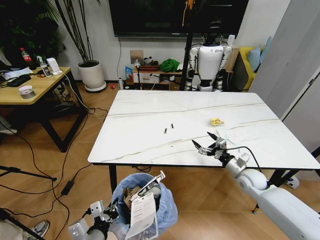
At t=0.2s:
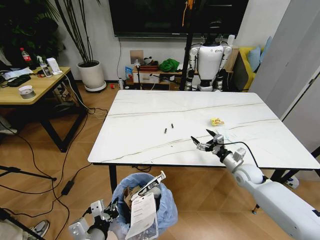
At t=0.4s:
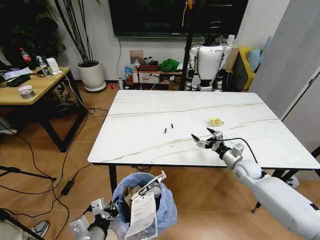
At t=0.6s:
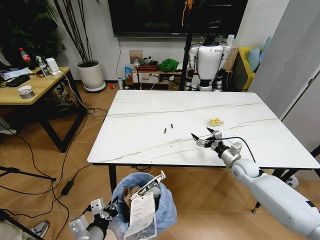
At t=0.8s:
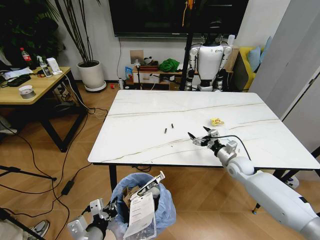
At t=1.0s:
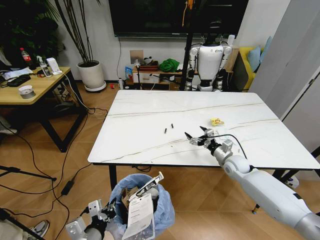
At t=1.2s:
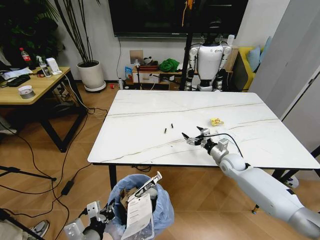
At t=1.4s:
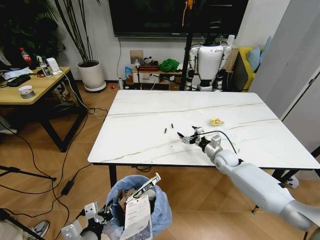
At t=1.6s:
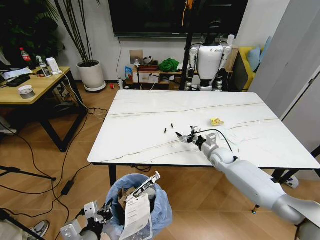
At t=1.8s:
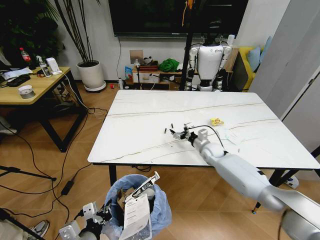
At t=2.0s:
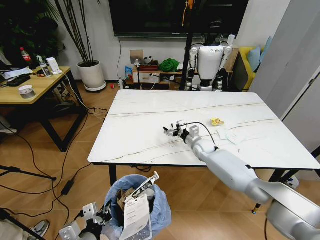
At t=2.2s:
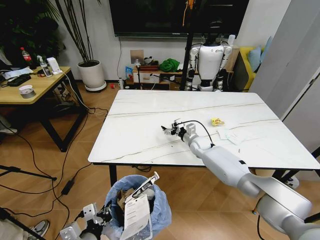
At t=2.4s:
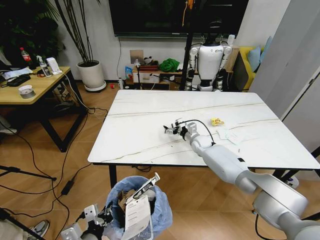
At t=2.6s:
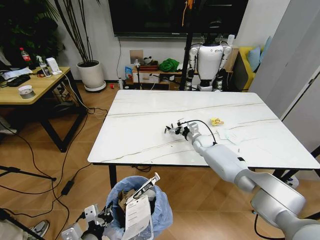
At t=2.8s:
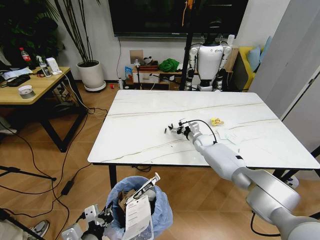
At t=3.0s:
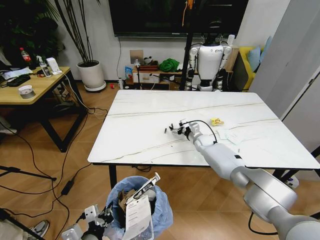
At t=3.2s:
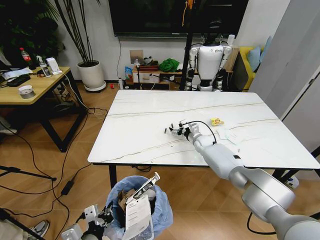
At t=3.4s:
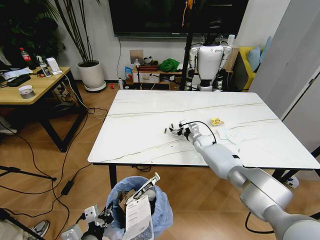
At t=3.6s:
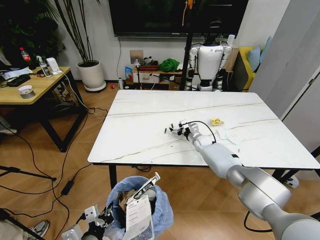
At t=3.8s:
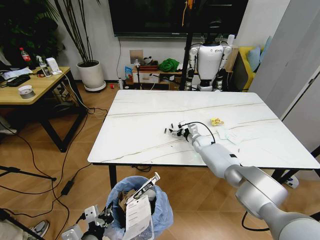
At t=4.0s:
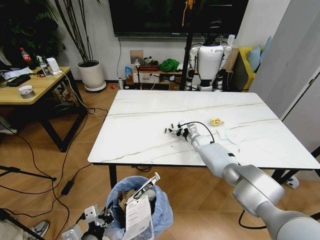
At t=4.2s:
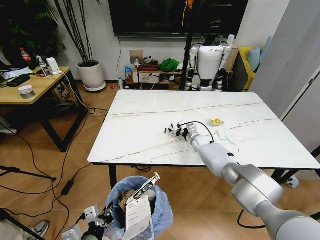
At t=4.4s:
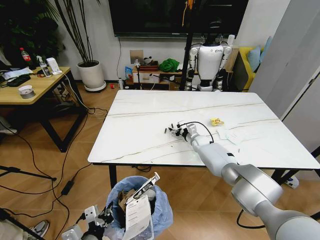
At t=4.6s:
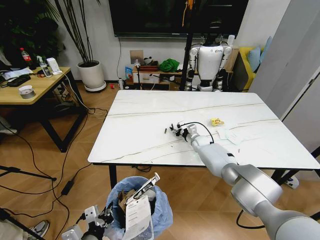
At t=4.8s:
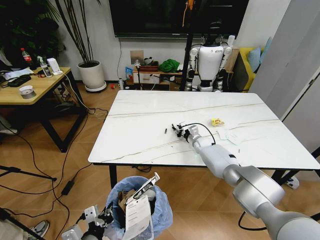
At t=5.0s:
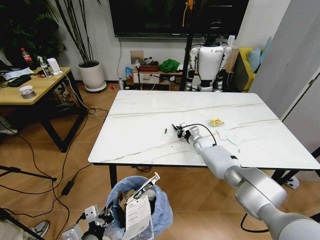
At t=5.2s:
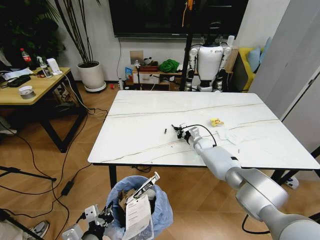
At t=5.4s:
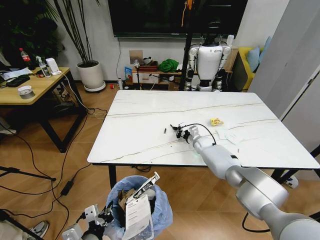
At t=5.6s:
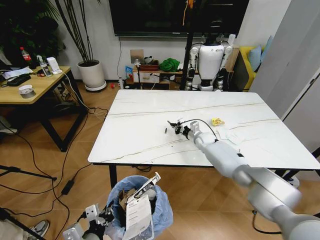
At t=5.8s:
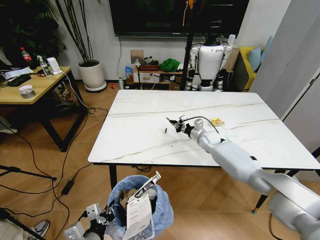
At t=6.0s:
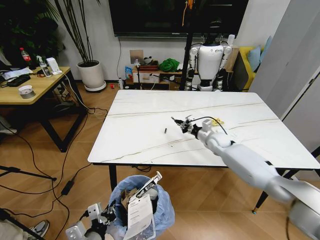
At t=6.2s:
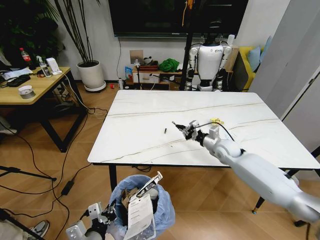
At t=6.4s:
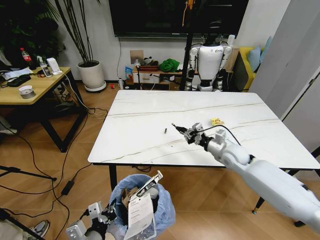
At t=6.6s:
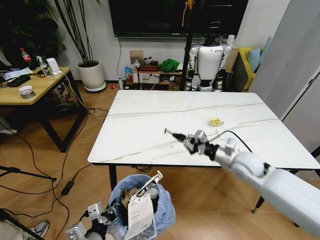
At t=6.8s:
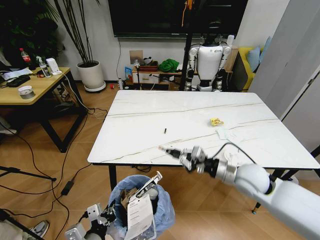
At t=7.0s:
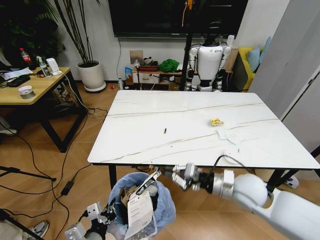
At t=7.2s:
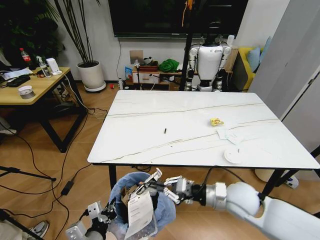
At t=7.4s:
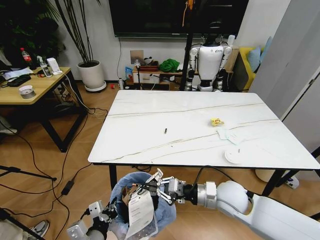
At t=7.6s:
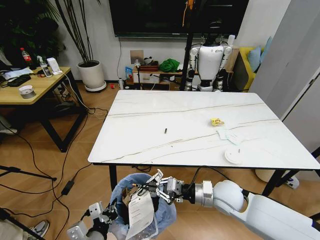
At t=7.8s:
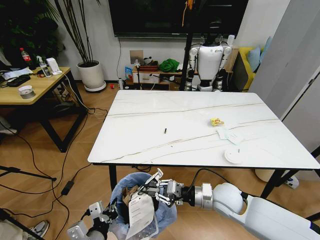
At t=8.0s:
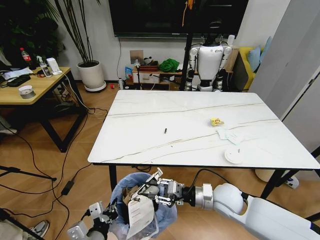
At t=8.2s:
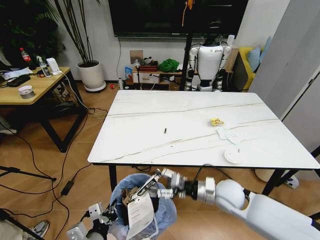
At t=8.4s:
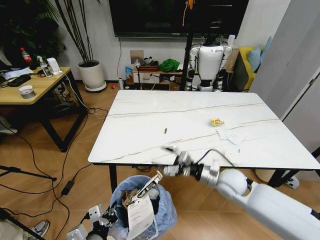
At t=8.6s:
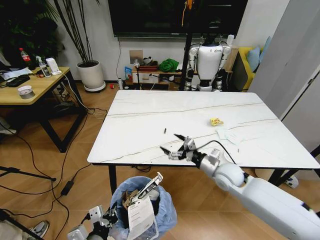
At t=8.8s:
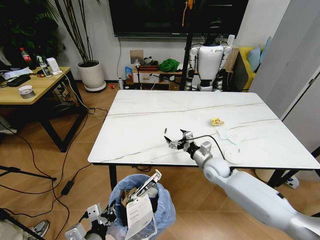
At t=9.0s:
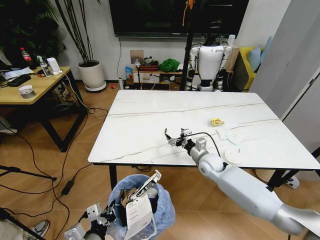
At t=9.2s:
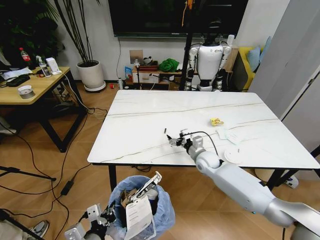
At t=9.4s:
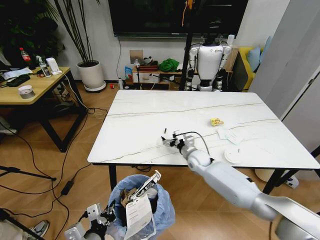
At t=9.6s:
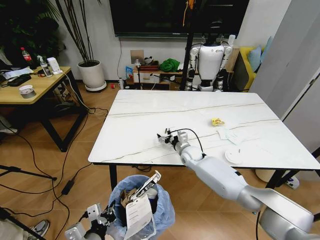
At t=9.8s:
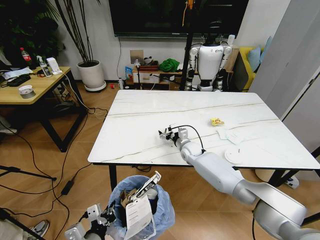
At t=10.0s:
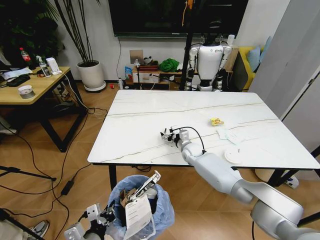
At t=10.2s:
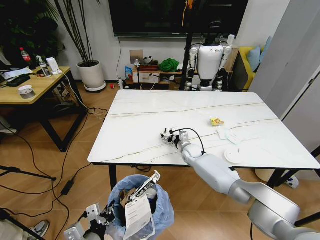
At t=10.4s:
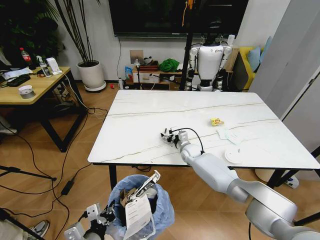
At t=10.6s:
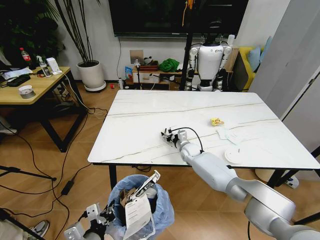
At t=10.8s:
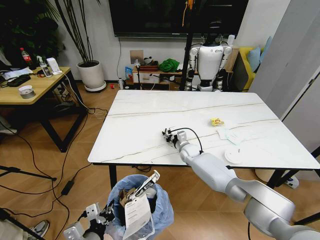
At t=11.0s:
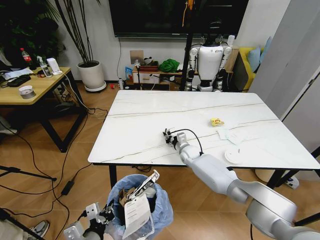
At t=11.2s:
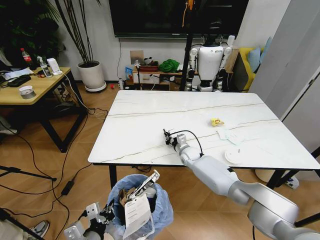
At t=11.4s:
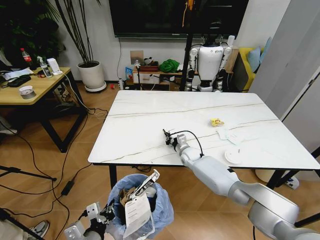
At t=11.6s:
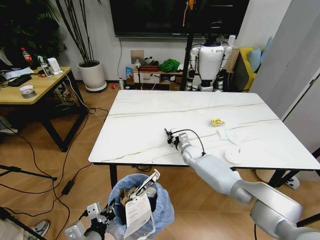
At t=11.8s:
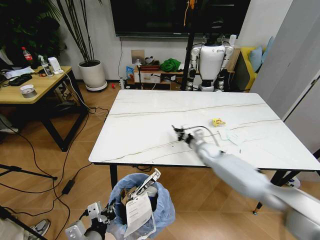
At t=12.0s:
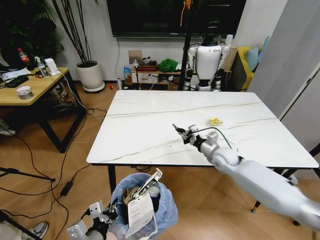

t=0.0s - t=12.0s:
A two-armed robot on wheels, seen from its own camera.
Task of the whole recording: Pick up the trash bin and place the trash from the table into it.
t=0.0s - t=1.6s: The right gripper goes approximately 15 cm forward and to the left.
t=1.6s - t=3.0s: The right gripper is displaced forward by some 10 cm.
t=3.0s - t=4.4s: There are only small adjustments of the grippers.
t=4.4s - t=6.0s: The right gripper is displaced upward, to the right and backward by roughly 10 cm, and closes up.
t=6.0s - t=7.6s: The right gripper is displaced backward by some 25 cm.
t=7.6s - t=9.0s: The right gripper shifts some 15 cm forward, and opens its fingers.
t=9.0s - t=10.4s: The right gripper heads forward and to the left, covering about 10 cm.
t=10.4s - t=12.0s: The right gripper travels to the right, upward and backward by some 15 cm, and closes up.

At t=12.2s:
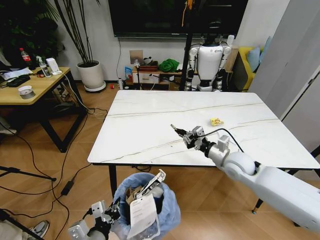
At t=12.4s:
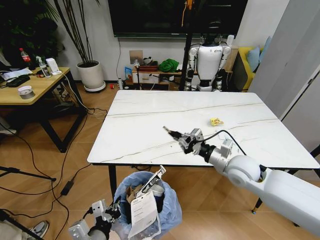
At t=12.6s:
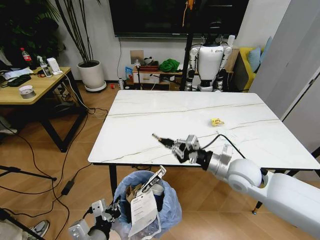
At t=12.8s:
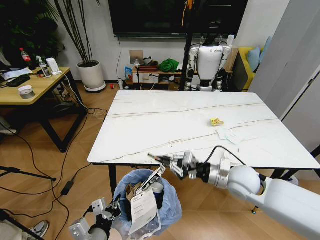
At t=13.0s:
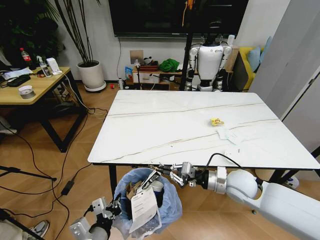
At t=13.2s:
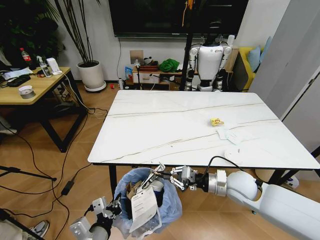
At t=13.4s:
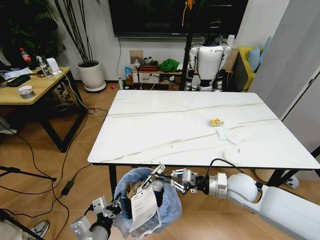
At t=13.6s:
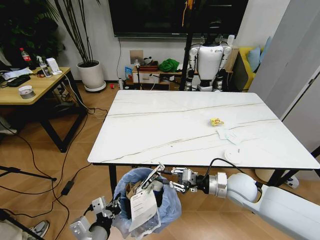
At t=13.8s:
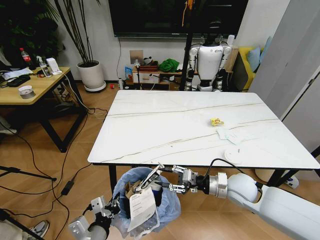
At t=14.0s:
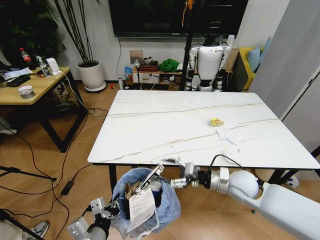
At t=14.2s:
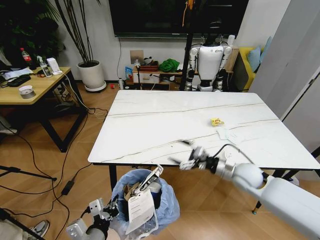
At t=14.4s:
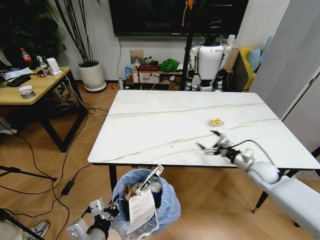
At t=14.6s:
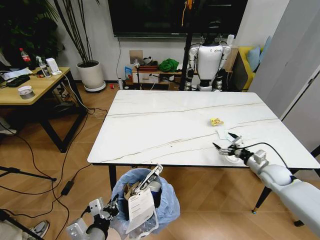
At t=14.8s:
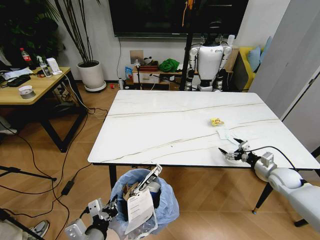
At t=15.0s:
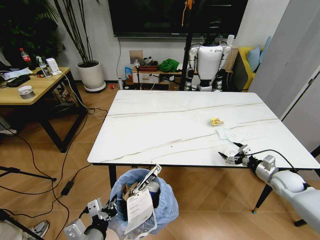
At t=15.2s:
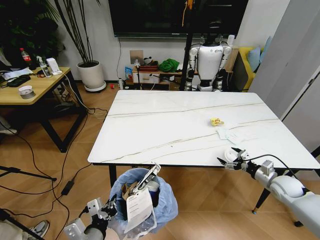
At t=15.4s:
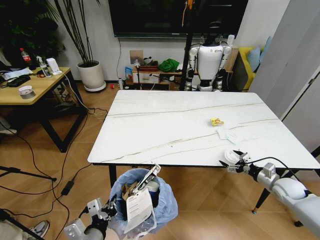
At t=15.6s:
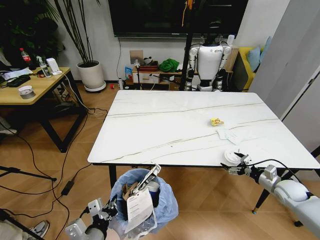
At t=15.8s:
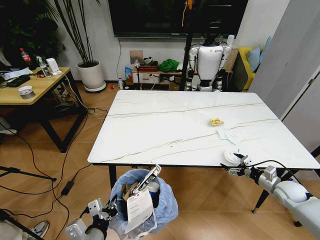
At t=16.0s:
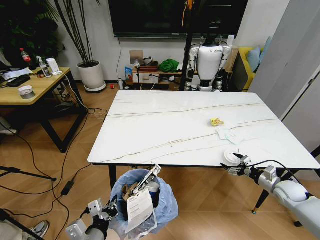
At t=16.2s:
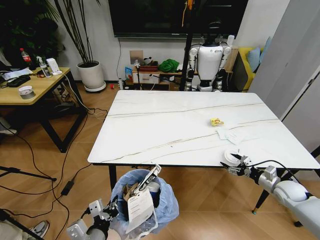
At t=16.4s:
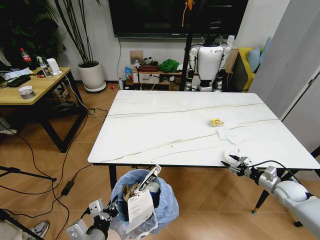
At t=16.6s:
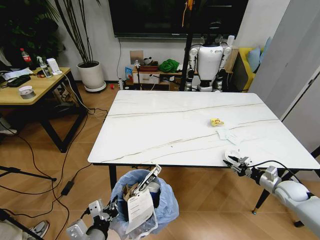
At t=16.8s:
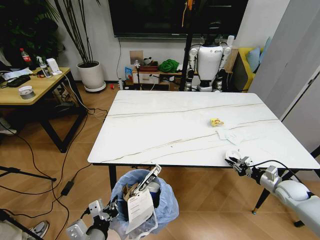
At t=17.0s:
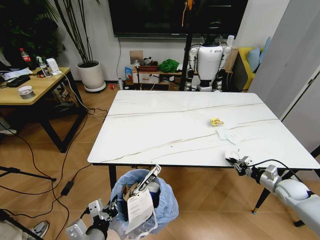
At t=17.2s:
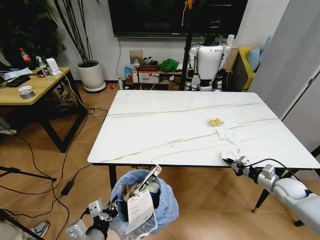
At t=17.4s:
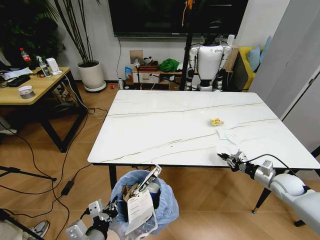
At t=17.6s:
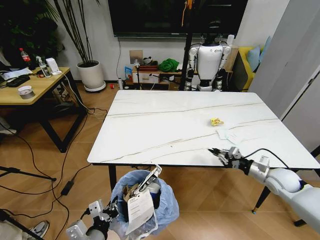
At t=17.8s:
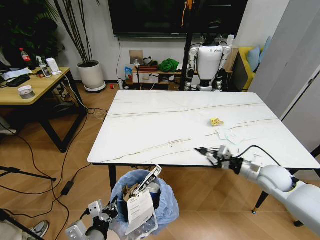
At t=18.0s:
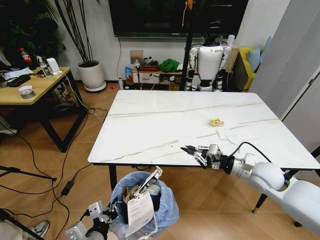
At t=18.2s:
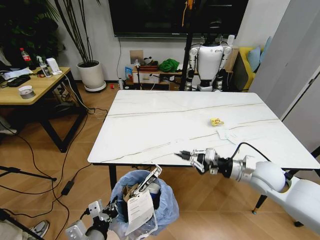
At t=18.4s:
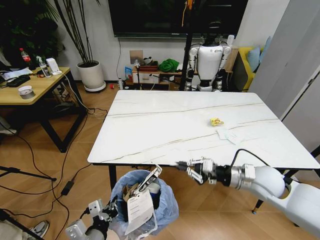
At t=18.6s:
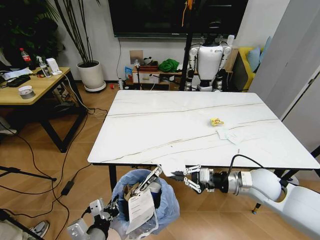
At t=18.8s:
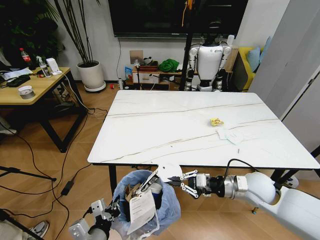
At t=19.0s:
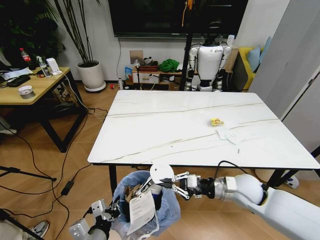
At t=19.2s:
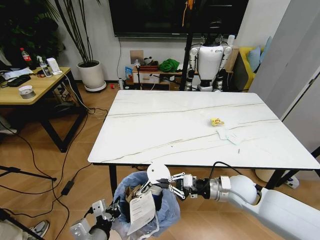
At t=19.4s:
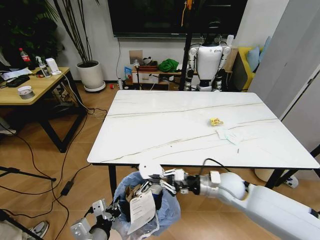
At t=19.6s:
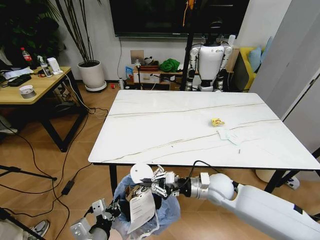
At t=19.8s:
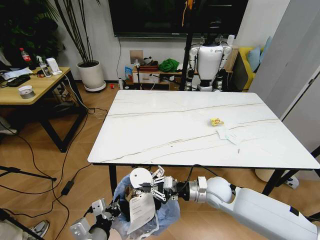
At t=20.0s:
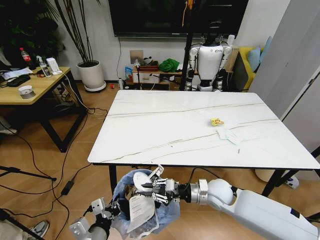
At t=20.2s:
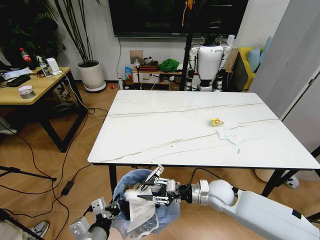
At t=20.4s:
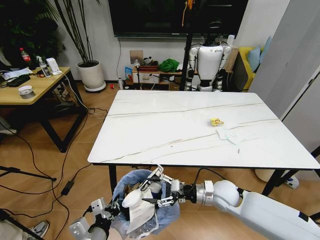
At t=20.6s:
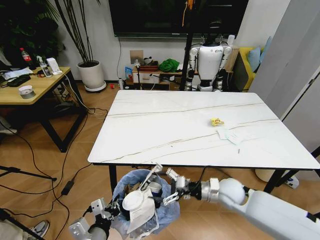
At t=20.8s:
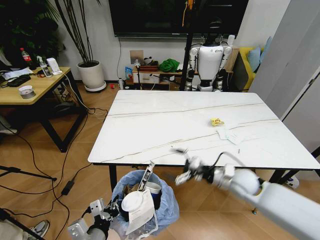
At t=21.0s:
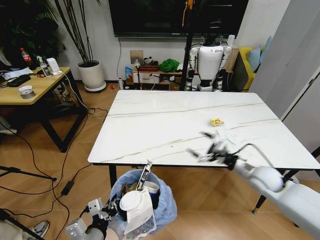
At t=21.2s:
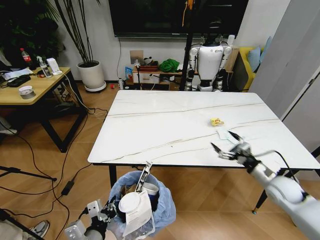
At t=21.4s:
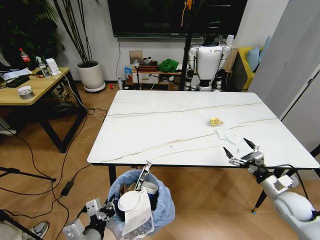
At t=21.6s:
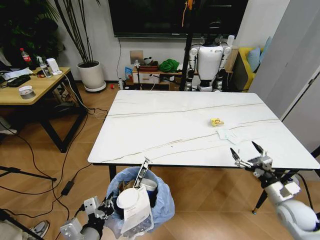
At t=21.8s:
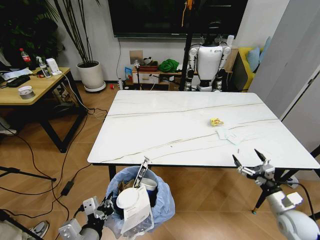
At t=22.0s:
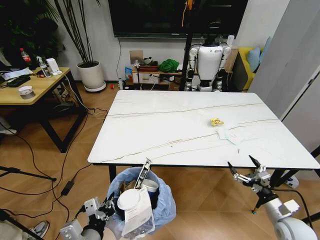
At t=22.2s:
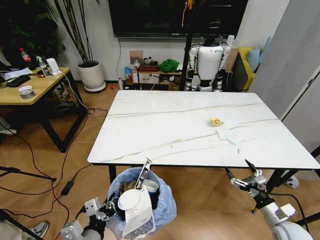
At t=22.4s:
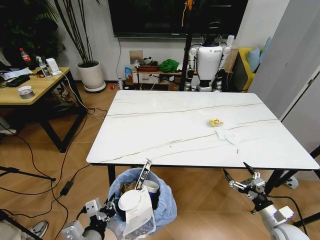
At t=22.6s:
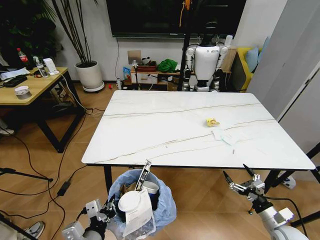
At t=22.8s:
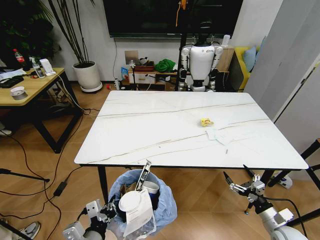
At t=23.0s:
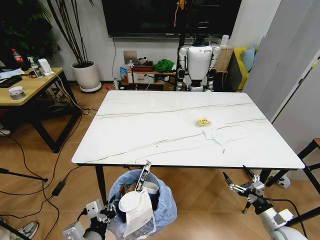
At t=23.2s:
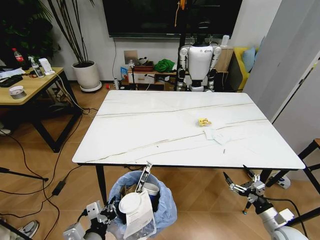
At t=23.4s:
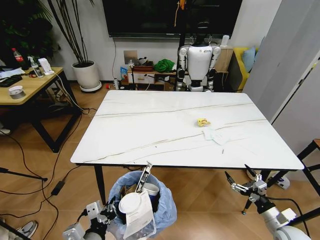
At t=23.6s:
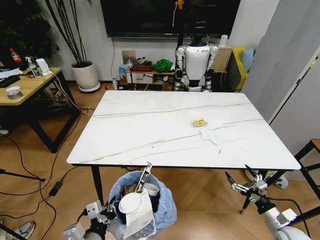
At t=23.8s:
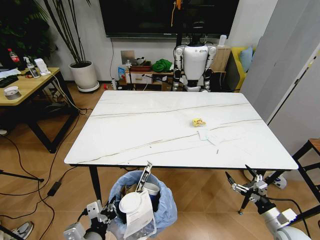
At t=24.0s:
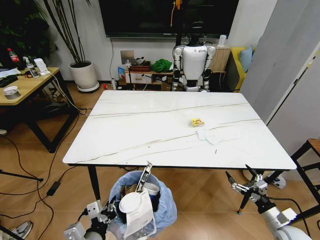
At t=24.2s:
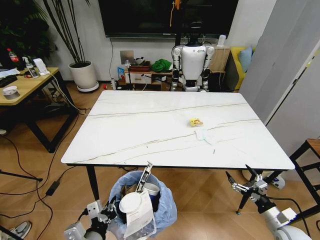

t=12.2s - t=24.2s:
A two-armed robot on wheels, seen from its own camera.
Task of the whole recording: Pick up the trash bin and place the trash from the table into it.
t=12.2s - t=13.8s: The right gripper travels backward by about 5 cm, and opens.
t=13.8s - t=15.2s: The right gripper shifts approximately 20 cm to the right, and opens up.
t=15.2s - t=16.6s: The right gripper closes its fingers.
t=16.6s - t=18.2s: The right gripper travels to the left and upward by roughly 25 cm, and closes.
t=18.2s - t=19.8s: The right gripper goes roughly 15 cm to the left and downward.
t=19.8s - t=21.2s: The right gripper moves to the right, approximately 25 cm, and opens its fingers.
t=21.2s - t=22.6s: The right gripper is displaced backward and downward by approximately 15 cm.
